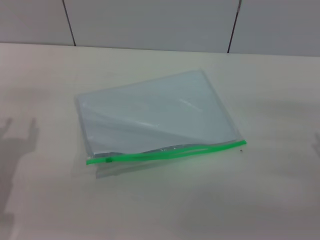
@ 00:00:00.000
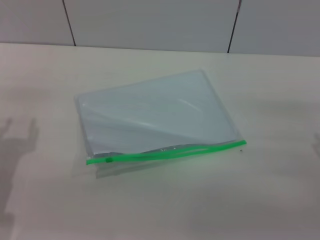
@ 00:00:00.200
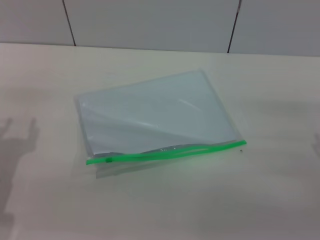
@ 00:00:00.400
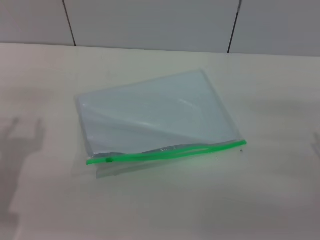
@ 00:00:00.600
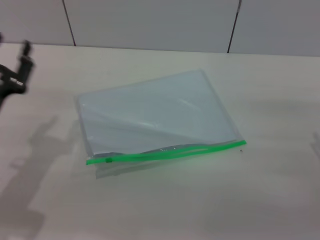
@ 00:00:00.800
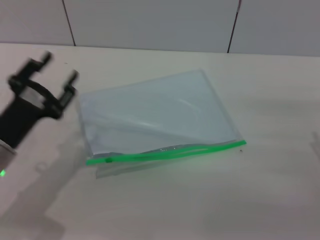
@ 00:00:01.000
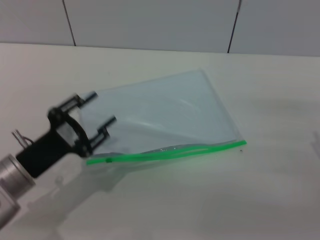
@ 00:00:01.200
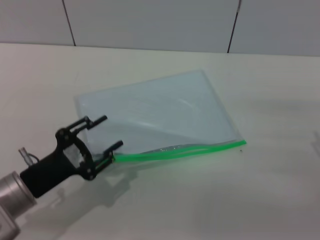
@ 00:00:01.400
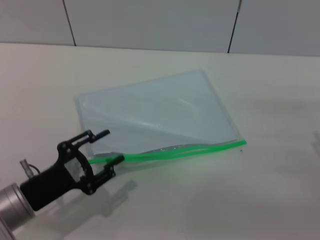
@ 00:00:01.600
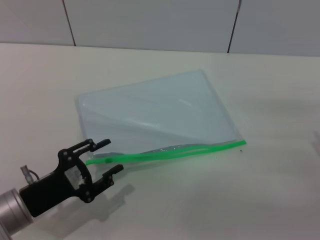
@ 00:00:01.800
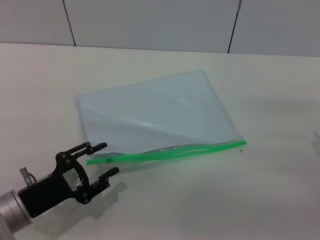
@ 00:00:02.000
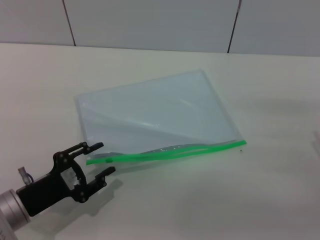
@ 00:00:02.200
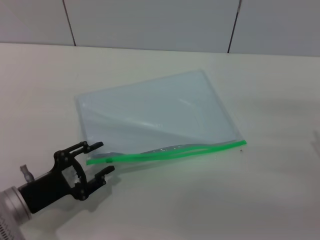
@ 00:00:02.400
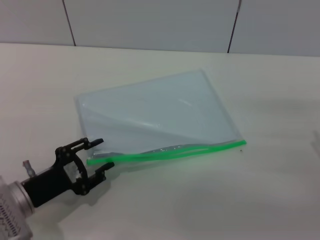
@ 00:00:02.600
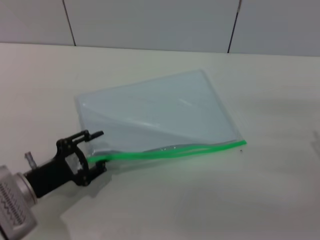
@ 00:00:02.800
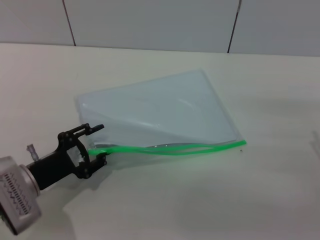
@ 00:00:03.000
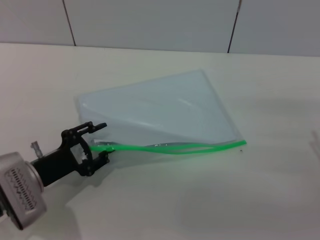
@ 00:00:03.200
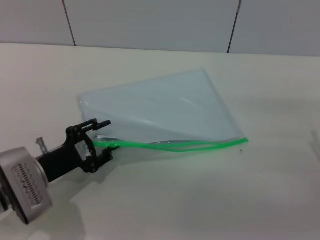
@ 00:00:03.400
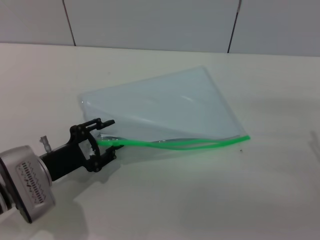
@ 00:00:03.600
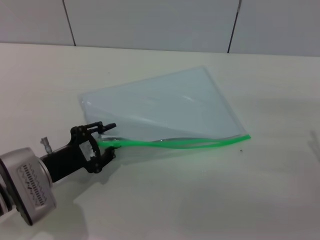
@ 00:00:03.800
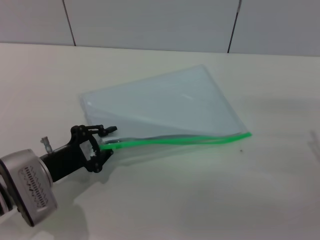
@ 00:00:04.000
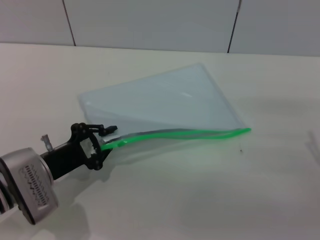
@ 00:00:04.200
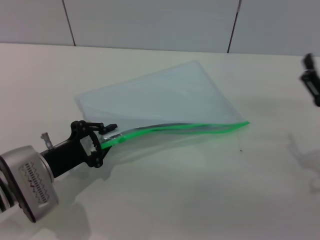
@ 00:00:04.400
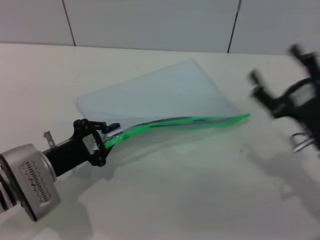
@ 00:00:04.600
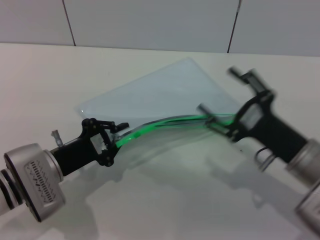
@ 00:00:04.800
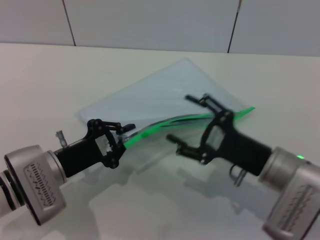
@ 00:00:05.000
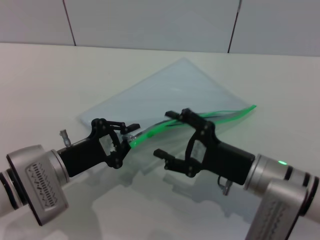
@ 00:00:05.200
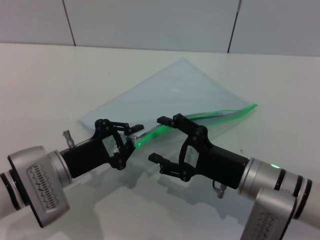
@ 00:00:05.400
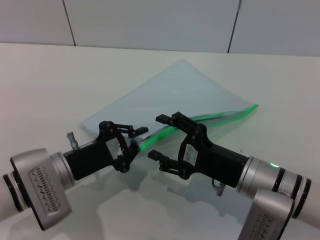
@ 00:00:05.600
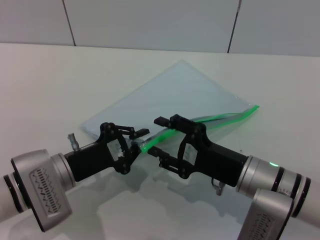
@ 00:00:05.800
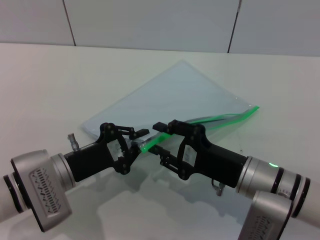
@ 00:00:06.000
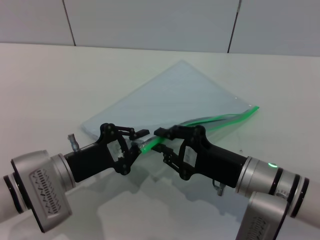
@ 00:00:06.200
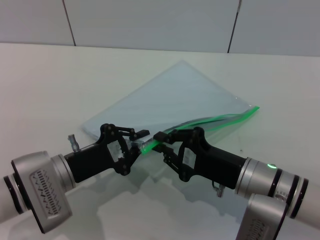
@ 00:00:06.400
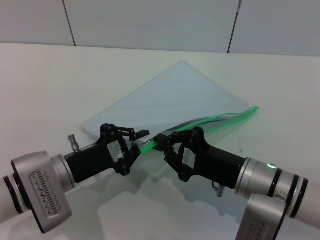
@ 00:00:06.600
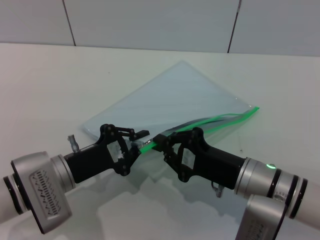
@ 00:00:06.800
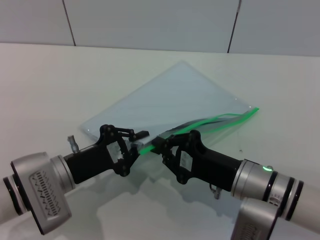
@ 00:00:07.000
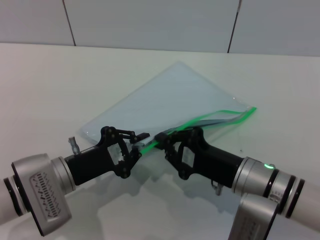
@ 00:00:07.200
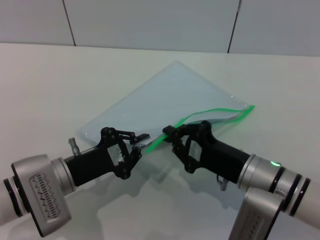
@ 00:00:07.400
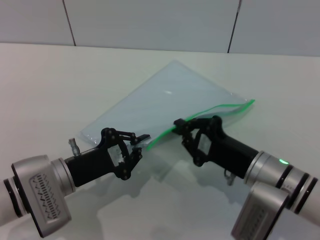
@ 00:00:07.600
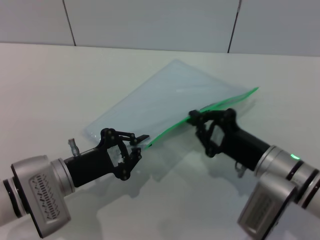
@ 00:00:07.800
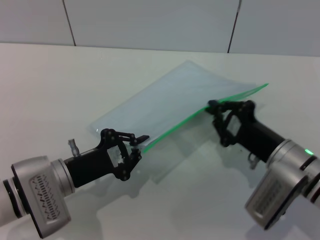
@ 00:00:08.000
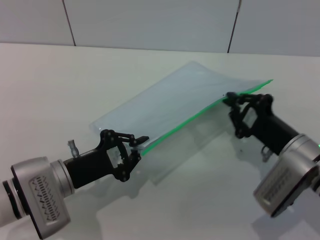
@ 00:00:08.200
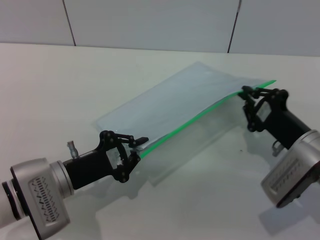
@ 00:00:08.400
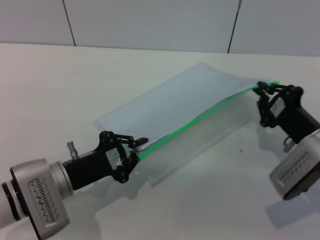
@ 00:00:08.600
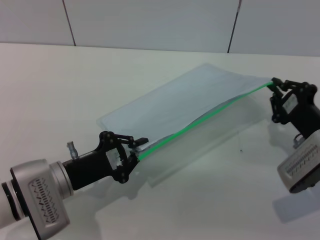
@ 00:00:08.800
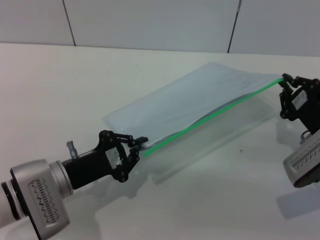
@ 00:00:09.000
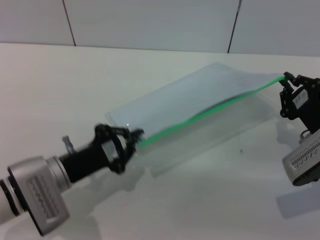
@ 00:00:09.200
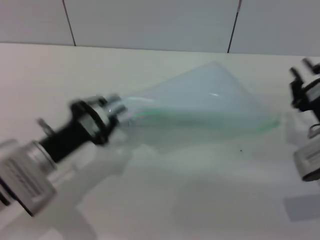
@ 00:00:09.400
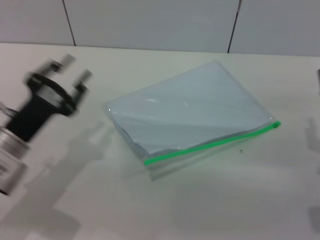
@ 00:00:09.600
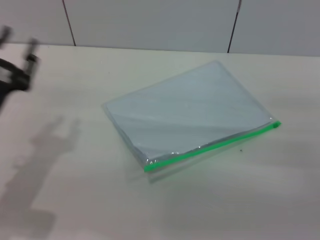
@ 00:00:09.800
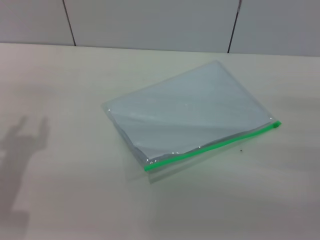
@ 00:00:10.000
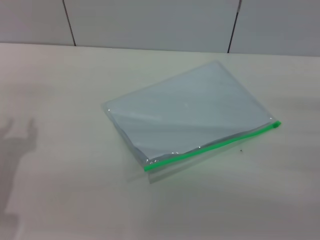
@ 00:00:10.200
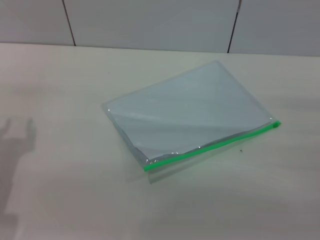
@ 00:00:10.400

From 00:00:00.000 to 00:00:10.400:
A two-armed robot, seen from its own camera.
Step, from 00:00:00.000 to 00:00:04.600: Pick up the transparent plastic bag with the left gripper.
Step, from 00:00:04.800 to 00:00:09.200: Pulling up the zipper on the transparent plastic bag with the right gripper to close it.
Step, from 00:00:09.400 to 00:00:09.800: Place the transparent plastic bag.
From 00:00:00.000 to 00:00:01.400: The left gripper goes approximately 5 cm to the right.
From 00:00:01.400 to 00:00:03.000: The grippers move only a little.
From 00:00:03.000 to 00:00:04.400: The left gripper closes up.
From 00:00:04.400 to 00:00:06.000: The right gripper moves to the left, roughly 15 cm.
From 00:00:06.000 to 00:00:07.400: The right gripper closes its fingers.
From 00:00:07.400 to 00:00:09.000: The right gripper moves to the right, about 10 cm.
From 00:00:09.000 to 00:00:10.400: The left gripper shifts about 15 cm to the left and upward, and opens up, while the right gripper moves to the right and backward, approximately 10 cm, and opens.

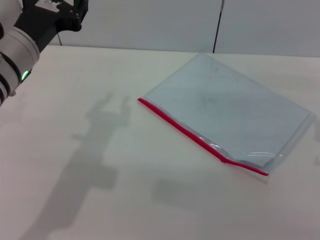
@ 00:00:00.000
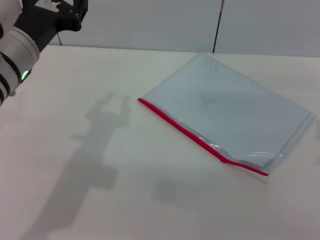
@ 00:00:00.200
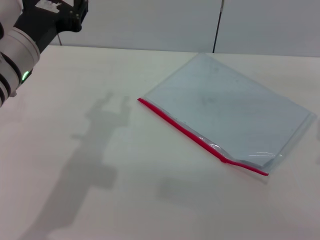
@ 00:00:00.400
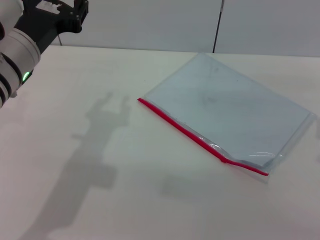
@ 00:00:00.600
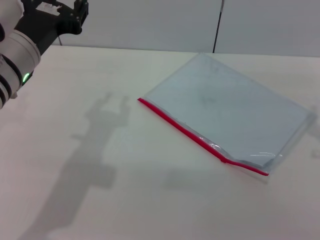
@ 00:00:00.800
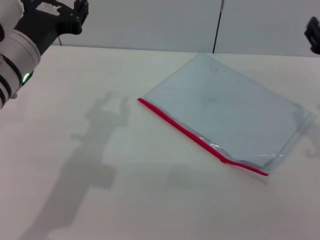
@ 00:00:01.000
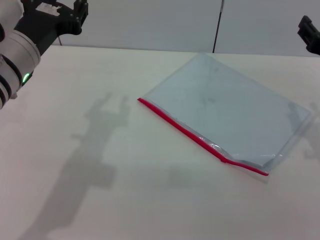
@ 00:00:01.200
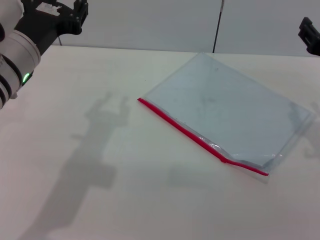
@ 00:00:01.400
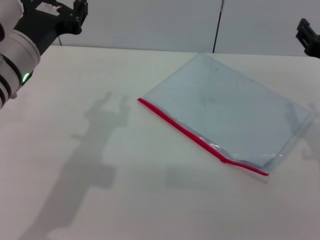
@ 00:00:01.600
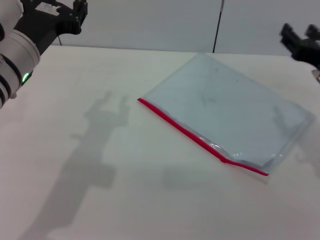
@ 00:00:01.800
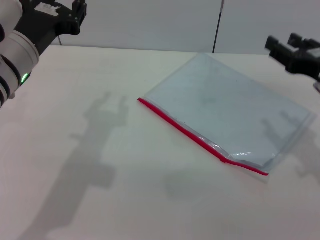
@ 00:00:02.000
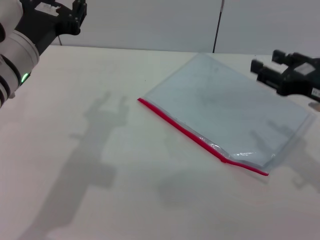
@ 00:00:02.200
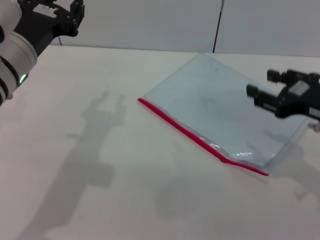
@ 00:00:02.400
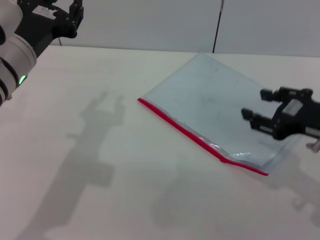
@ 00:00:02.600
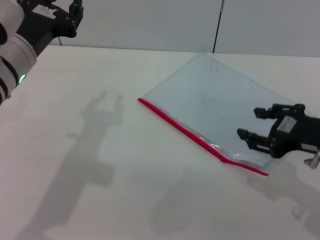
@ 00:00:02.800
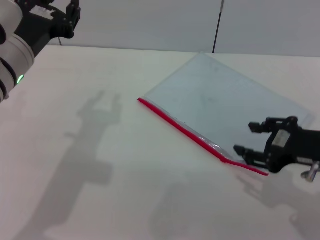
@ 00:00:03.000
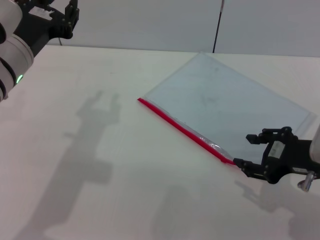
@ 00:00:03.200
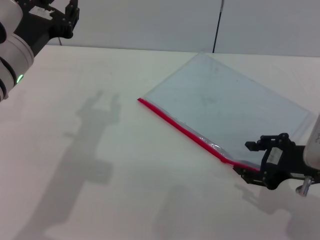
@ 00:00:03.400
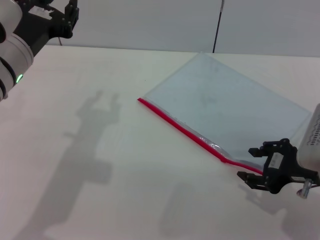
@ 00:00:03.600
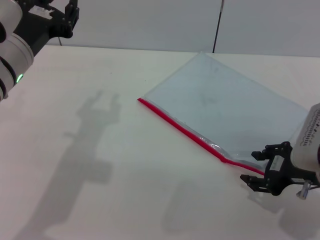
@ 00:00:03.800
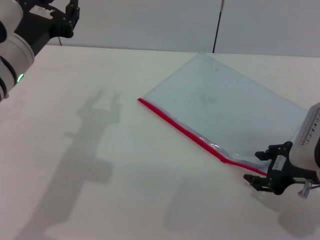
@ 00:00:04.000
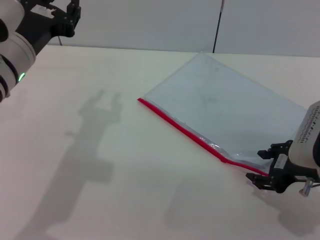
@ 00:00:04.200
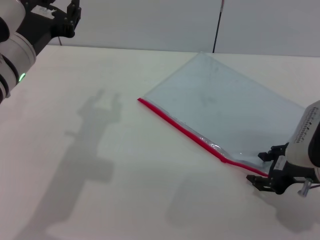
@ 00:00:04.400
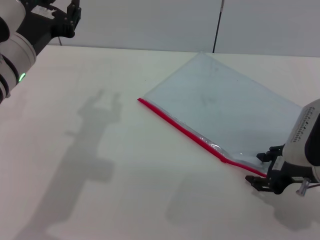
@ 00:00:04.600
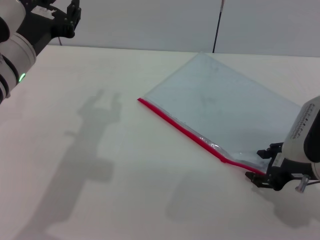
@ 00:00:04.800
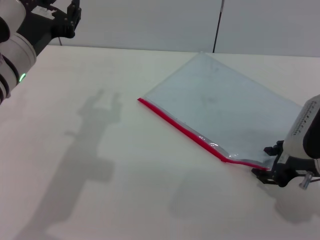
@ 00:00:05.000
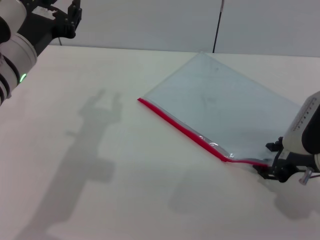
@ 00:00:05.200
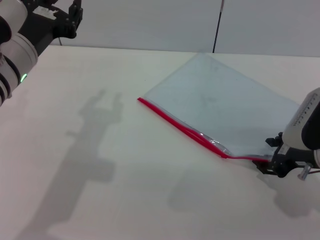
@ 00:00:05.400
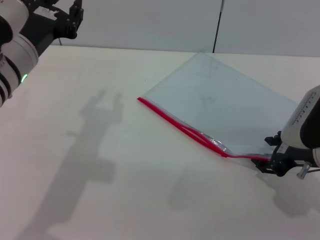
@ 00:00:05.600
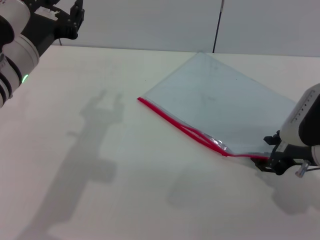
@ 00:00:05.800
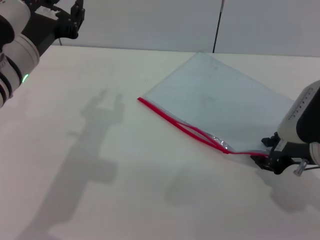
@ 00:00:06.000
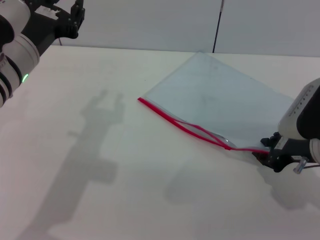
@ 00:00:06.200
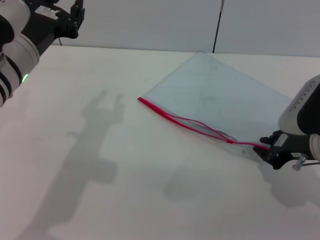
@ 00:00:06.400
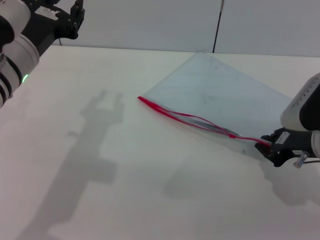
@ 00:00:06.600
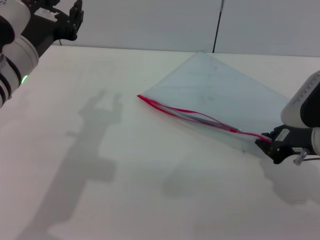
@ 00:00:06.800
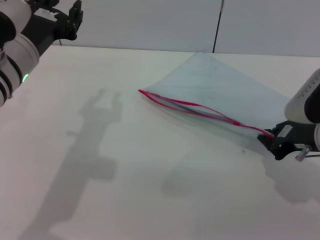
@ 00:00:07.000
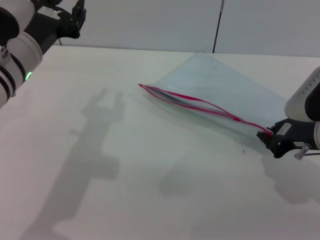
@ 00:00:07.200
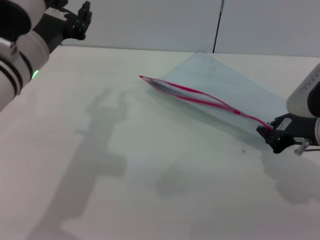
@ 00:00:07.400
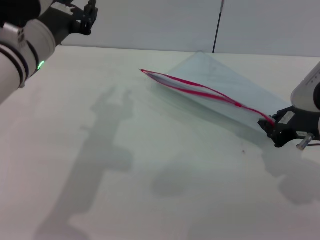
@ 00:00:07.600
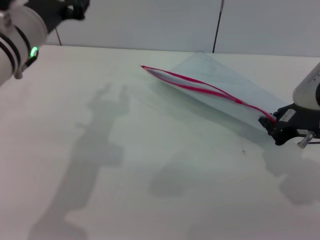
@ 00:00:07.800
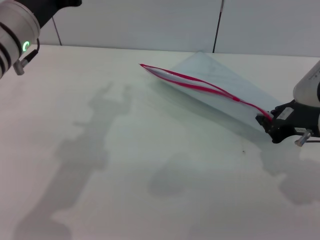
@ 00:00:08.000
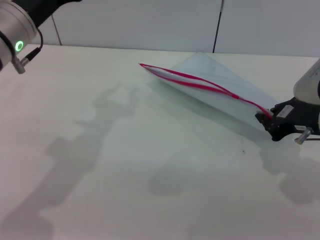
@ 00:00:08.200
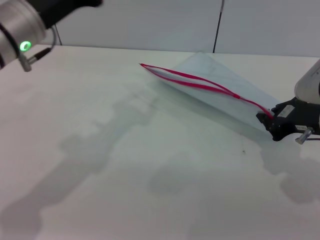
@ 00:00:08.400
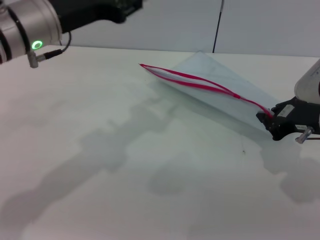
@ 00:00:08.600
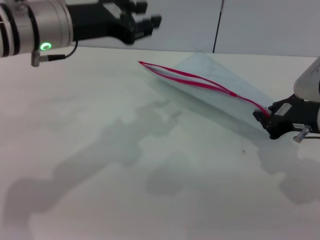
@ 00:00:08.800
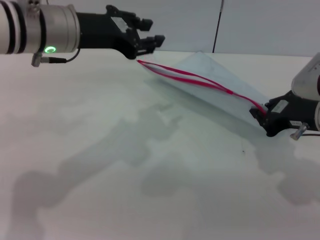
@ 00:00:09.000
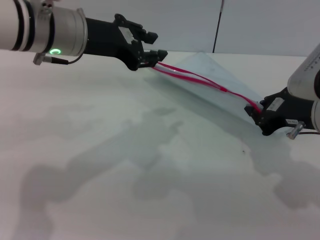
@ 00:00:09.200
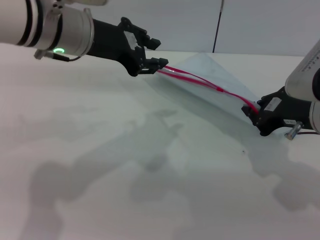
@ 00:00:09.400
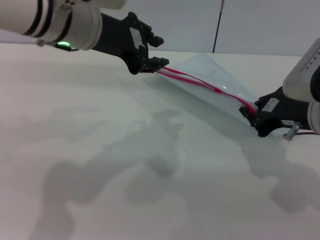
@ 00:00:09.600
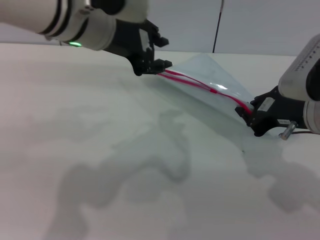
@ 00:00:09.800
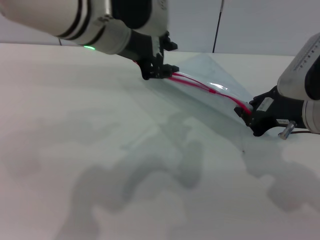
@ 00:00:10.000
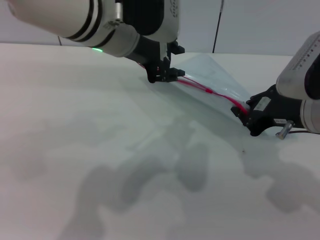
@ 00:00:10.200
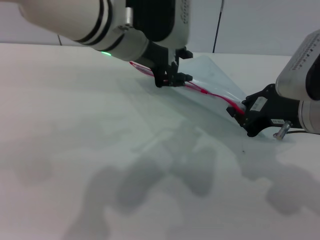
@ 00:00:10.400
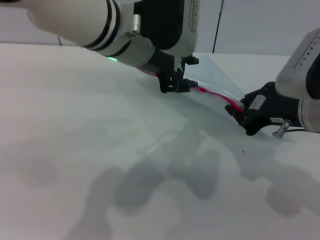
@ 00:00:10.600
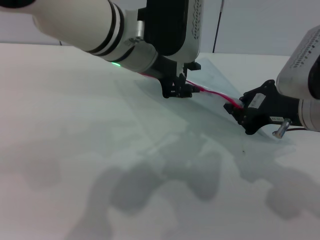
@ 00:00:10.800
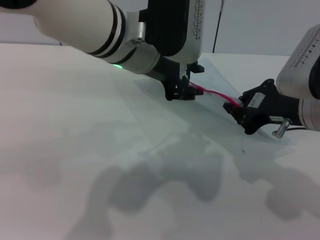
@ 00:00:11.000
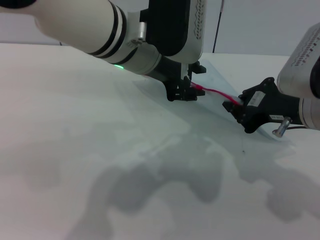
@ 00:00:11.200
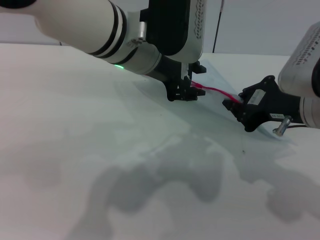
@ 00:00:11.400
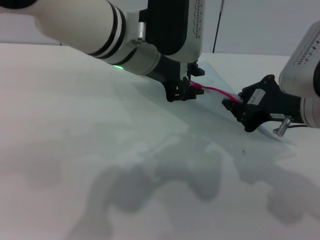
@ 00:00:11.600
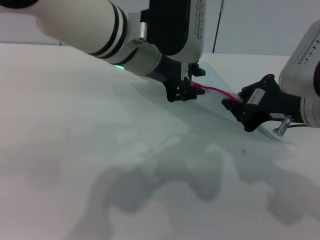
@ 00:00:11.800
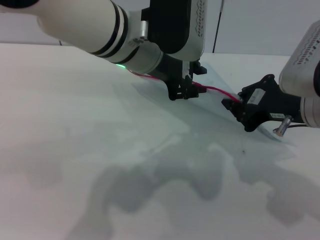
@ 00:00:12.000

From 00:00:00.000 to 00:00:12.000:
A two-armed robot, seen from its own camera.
Step, from 00:00:00.000 to 00:00:07.400: Pick up the transparent plastic bag with the right gripper.
From 00:00:01.600 to 00:00:03.000: The right gripper shifts roughly 5 cm backward.
From 00:00:03.000 to 00:00:04.400: The grippers make only small movements.
From 00:00:04.400 to 00:00:06.000: There are only small adjustments of the grippers.
From 00:00:06.000 to 00:00:07.600: The right gripper closes its fingers.
From 00:00:09.000 to 00:00:10.400: The left gripper heads to the right, covering some 10 cm.
From 00:00:10.400 to 00:00:12.000: The grippers move only a little.
